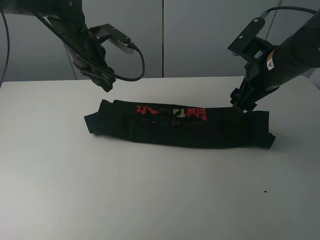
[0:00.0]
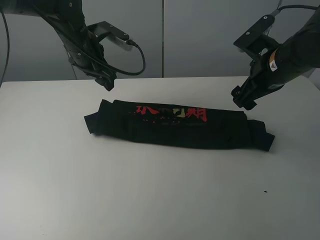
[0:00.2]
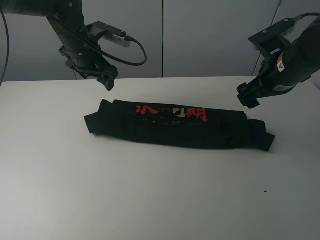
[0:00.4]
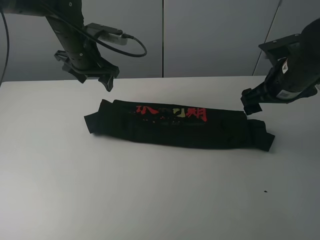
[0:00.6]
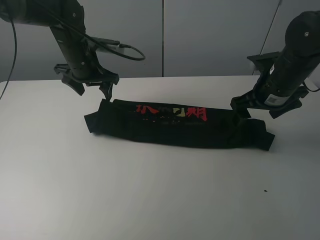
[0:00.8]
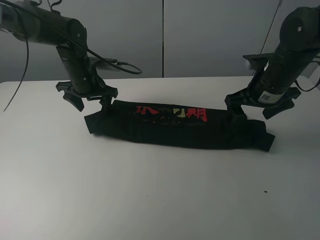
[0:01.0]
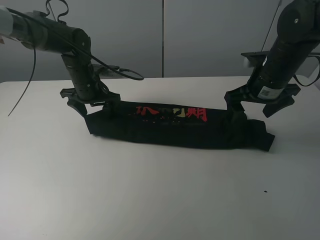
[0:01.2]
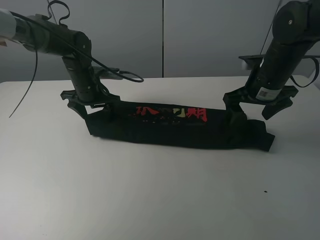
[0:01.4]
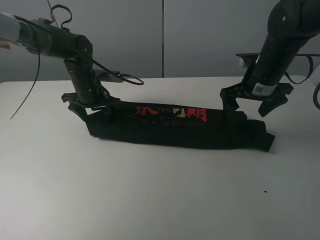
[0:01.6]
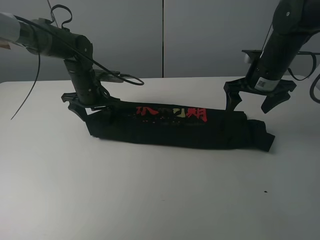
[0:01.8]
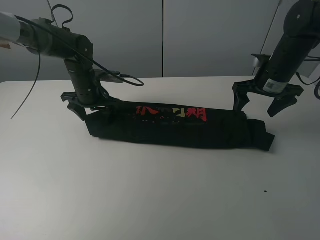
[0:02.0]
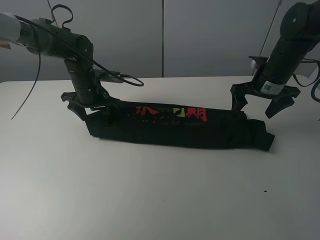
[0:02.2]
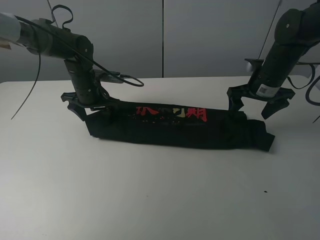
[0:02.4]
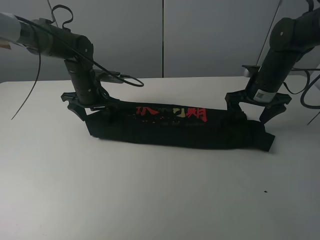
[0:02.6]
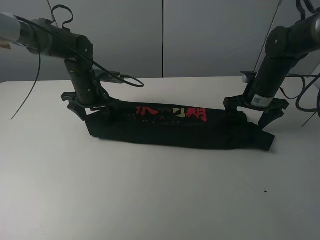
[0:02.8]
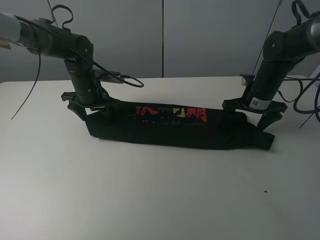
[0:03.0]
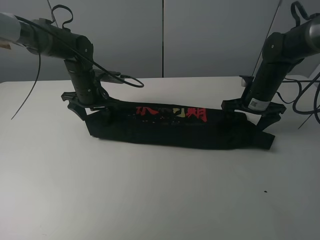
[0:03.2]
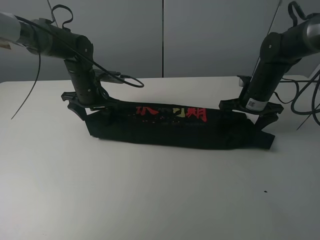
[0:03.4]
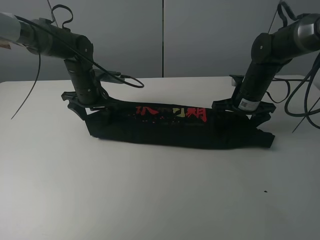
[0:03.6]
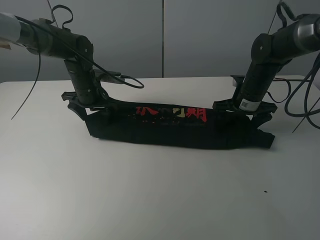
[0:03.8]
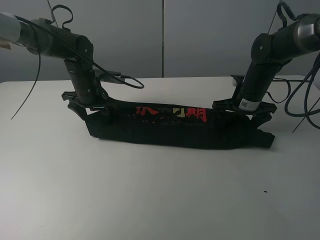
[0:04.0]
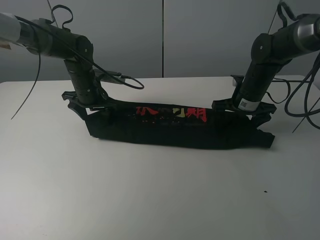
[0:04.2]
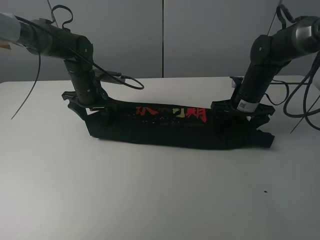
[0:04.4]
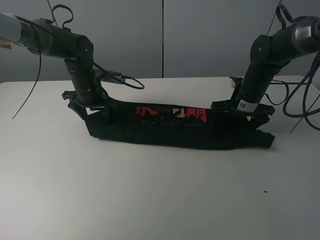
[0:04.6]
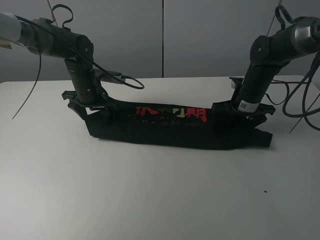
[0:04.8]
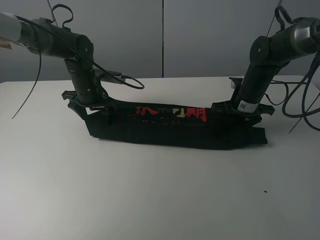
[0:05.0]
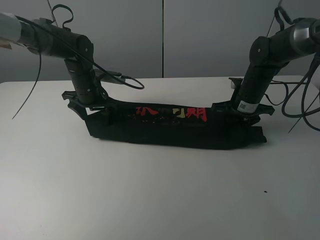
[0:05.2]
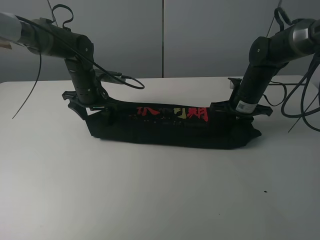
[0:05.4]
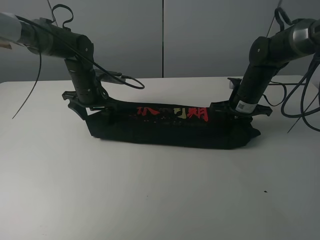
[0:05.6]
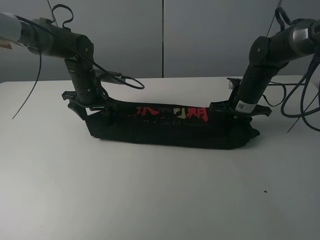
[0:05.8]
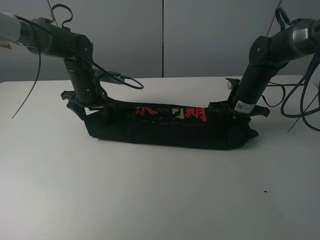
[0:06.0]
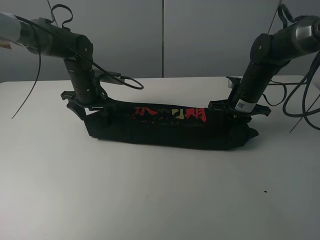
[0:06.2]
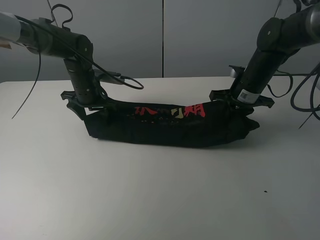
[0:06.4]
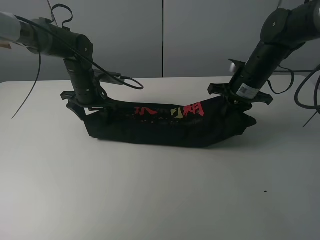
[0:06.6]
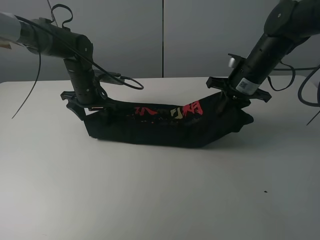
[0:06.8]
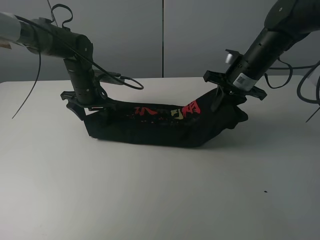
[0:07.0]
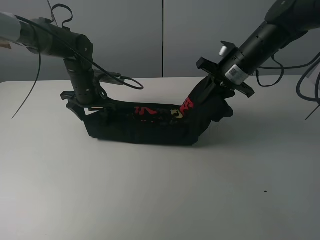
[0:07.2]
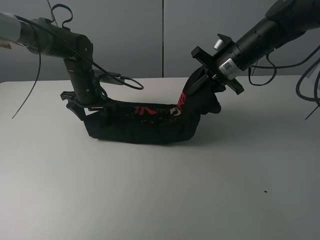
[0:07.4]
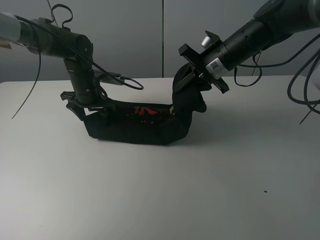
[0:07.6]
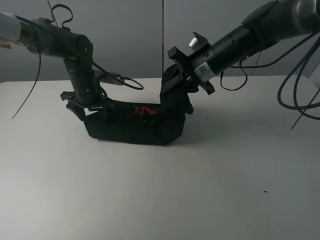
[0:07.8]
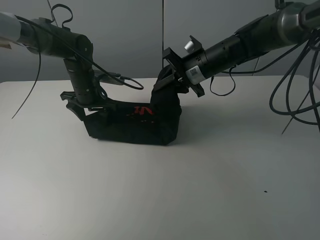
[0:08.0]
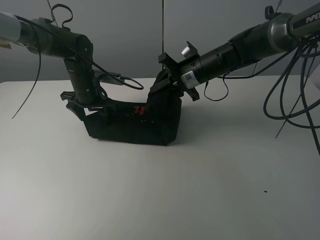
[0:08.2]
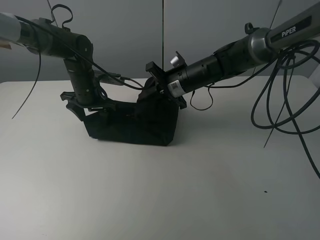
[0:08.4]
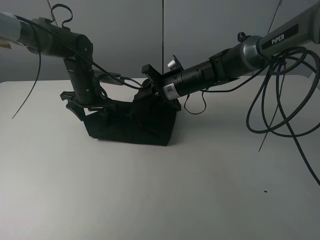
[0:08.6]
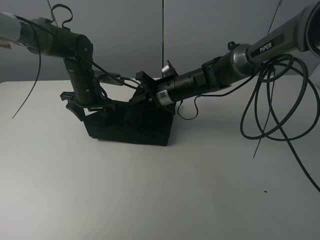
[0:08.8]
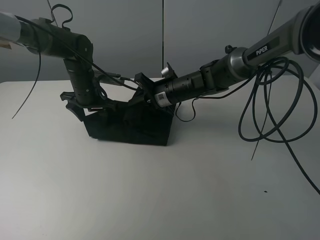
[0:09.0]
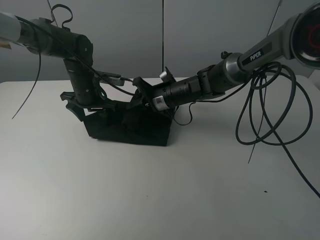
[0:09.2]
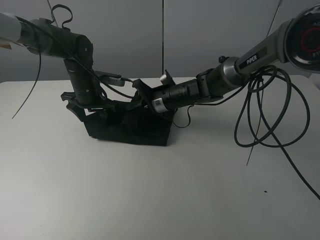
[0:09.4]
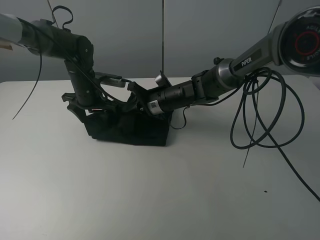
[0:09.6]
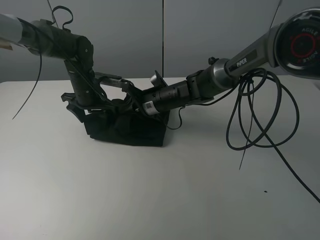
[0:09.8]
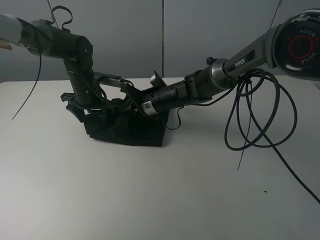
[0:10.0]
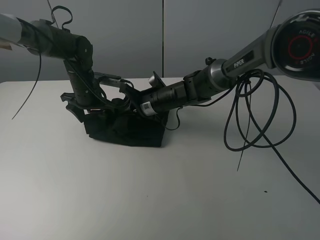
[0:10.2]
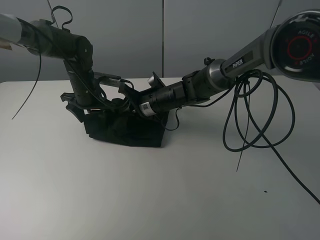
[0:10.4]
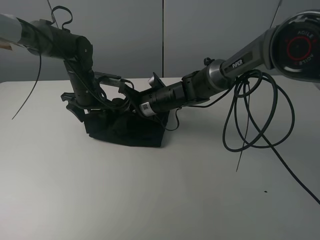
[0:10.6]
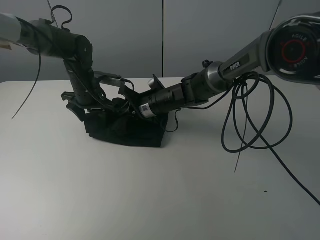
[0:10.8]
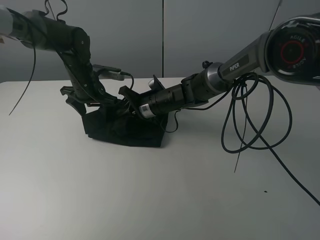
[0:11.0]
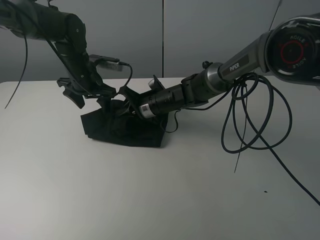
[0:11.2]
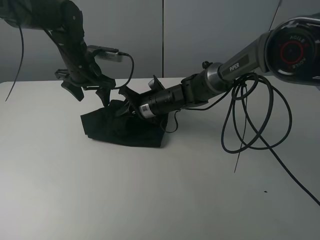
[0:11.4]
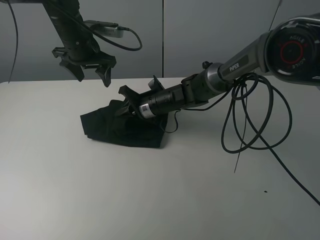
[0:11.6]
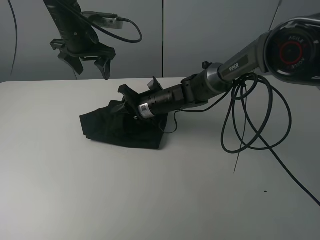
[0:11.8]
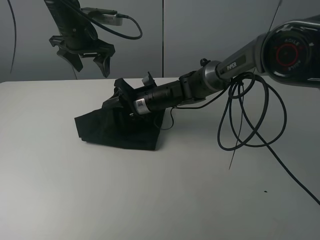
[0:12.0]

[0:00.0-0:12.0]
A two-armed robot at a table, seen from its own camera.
Task of the whole recording: fold the clothes on the table.
Step, 0:00.4 to 0:05.2: Grasp the black T-shirt with the right gripper.
0:00.0 to 0:01.6: The left gripper heads downward, covering approximately 10 cm. Meanwhile the right gripper moves forward, about 5 cm.
0:01.6 to 0:03.0: The right gripper moves downward, about 5 cm.
0:03.0 to 0:04.4: There are only small adjustments of the grippers.
0:04.4 to 0:06.0: The right gripper closes up.
0:06.0 to 0:07.6: The right gripper shifts roughly 10 cm upward and to the left.
0:07.6 to 0:09.0: The right gripper goes some 15 cm downward and to the left.
0:09.0 to 0:10.4: The grippers move only a little.
0:10.4 to 0:12.0: The left gripper shifts some 15 cm upward. The right gripper opens up.

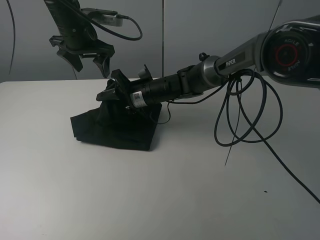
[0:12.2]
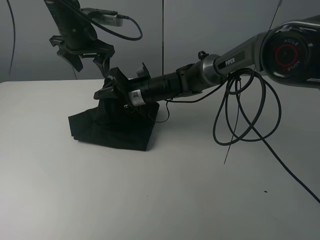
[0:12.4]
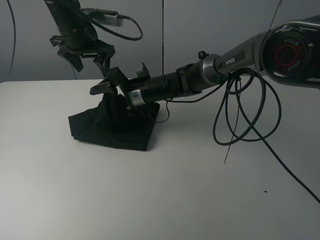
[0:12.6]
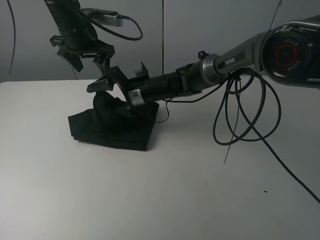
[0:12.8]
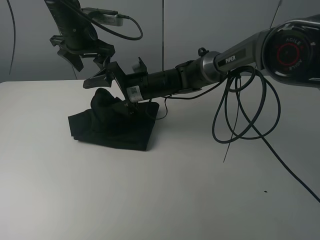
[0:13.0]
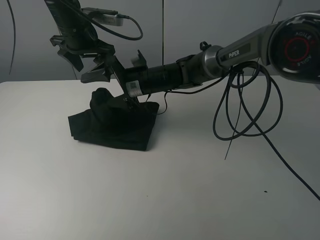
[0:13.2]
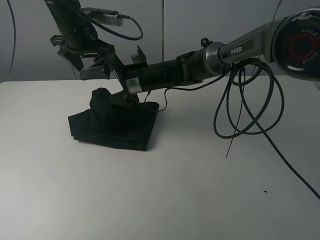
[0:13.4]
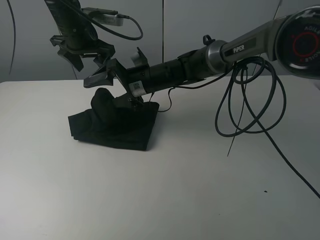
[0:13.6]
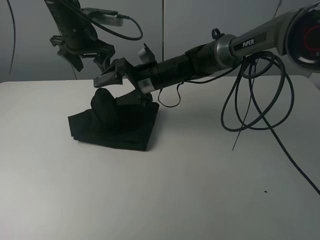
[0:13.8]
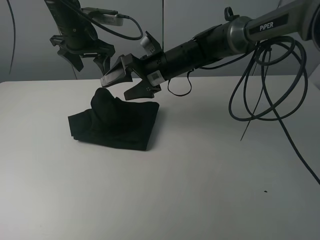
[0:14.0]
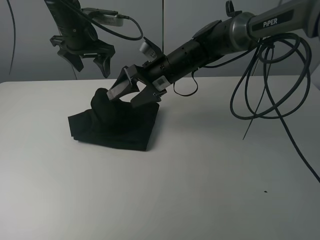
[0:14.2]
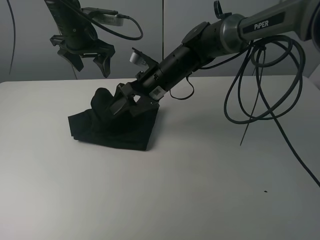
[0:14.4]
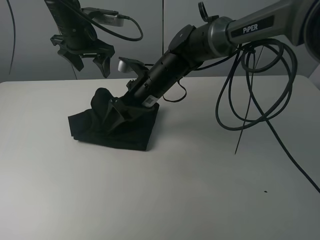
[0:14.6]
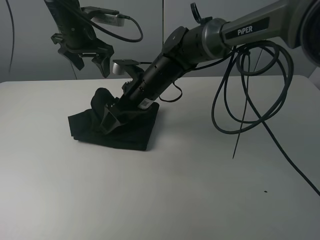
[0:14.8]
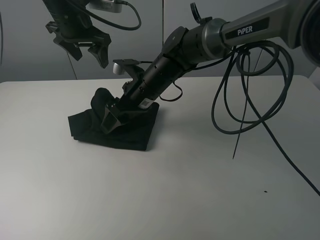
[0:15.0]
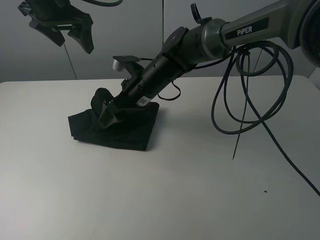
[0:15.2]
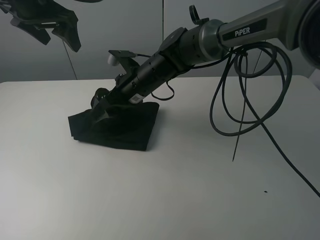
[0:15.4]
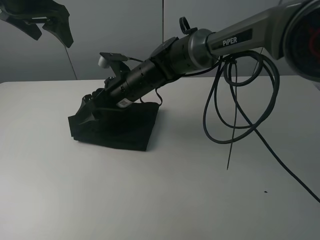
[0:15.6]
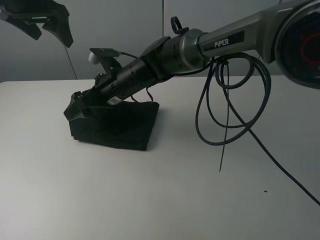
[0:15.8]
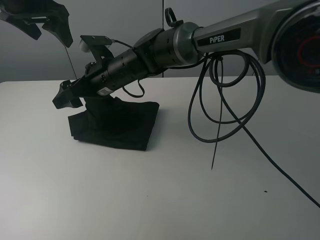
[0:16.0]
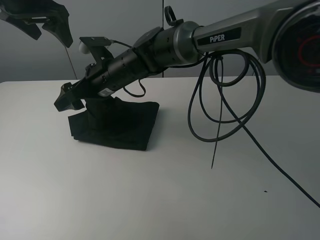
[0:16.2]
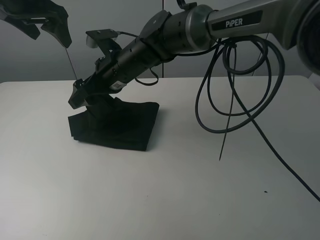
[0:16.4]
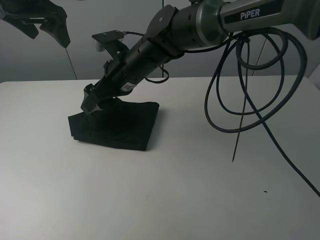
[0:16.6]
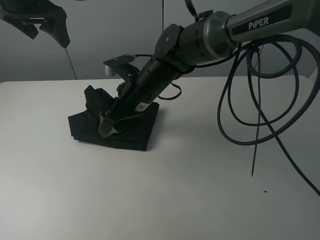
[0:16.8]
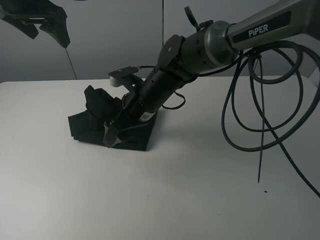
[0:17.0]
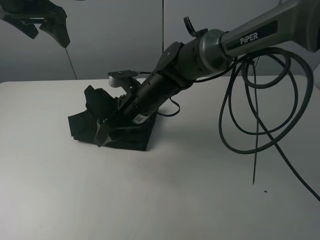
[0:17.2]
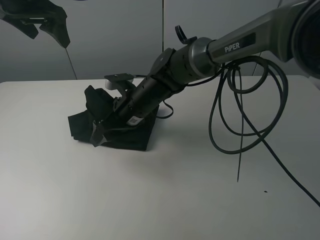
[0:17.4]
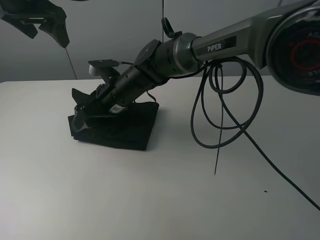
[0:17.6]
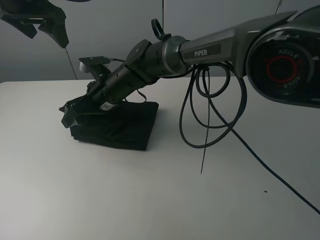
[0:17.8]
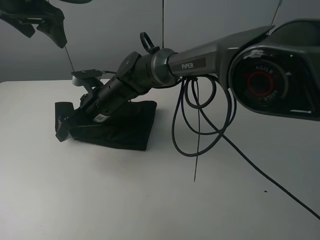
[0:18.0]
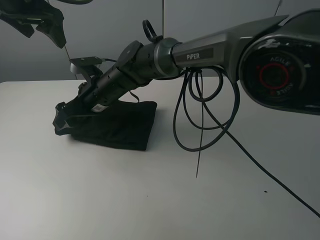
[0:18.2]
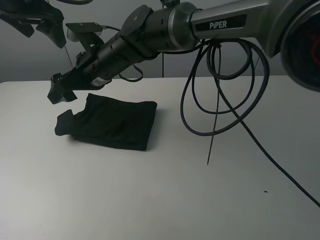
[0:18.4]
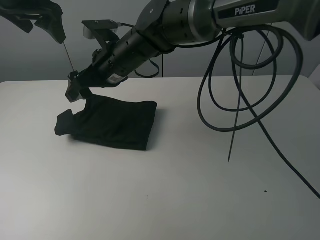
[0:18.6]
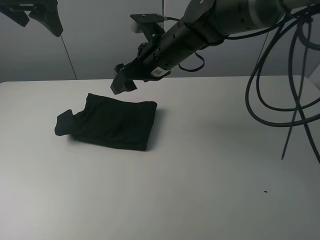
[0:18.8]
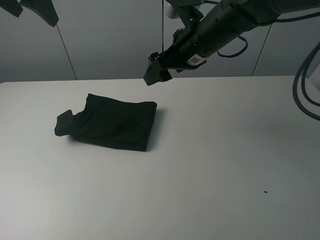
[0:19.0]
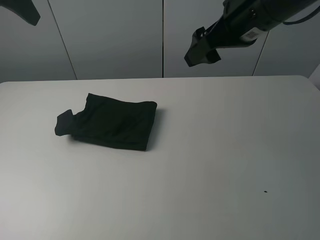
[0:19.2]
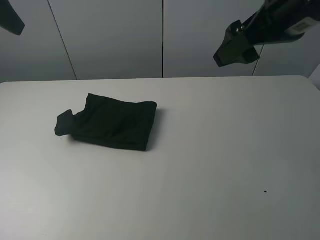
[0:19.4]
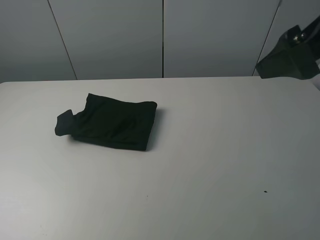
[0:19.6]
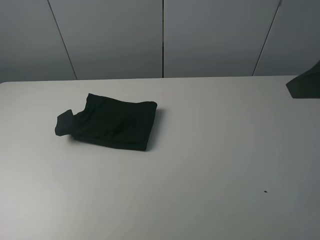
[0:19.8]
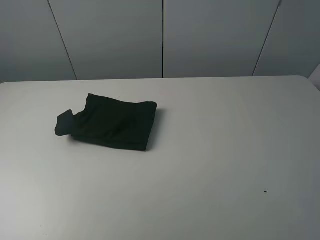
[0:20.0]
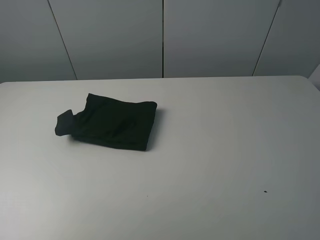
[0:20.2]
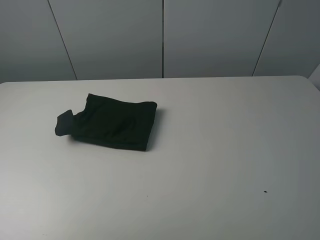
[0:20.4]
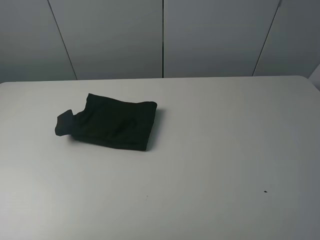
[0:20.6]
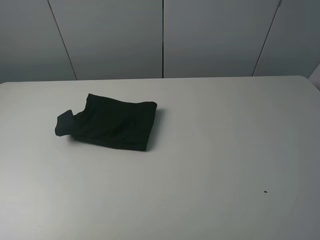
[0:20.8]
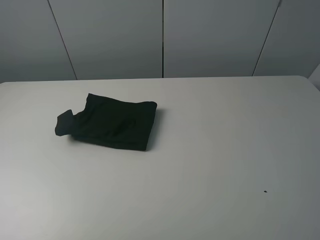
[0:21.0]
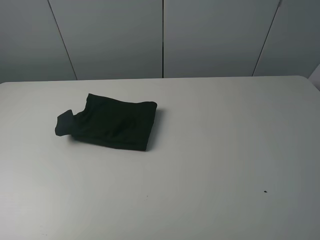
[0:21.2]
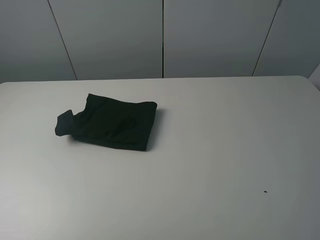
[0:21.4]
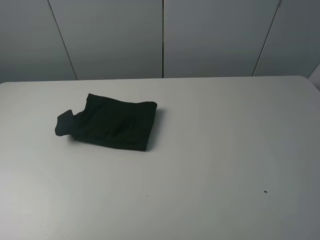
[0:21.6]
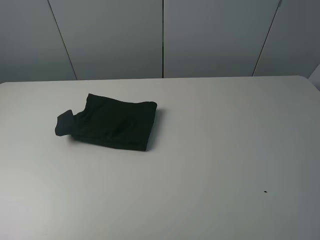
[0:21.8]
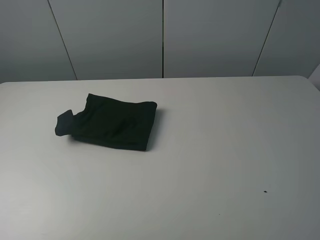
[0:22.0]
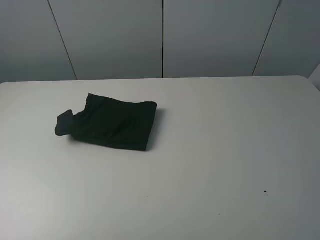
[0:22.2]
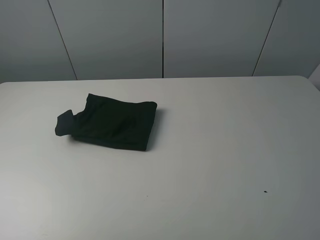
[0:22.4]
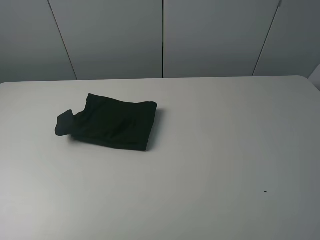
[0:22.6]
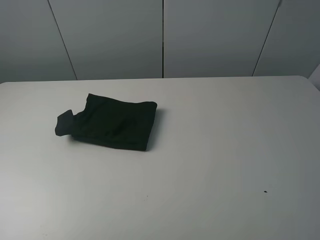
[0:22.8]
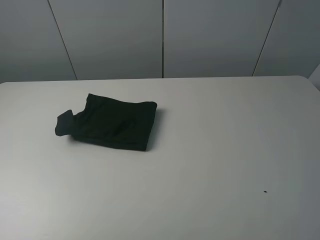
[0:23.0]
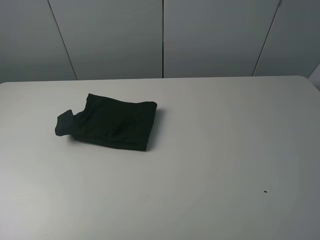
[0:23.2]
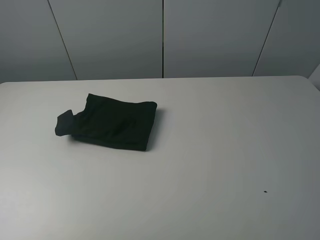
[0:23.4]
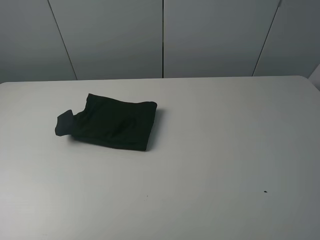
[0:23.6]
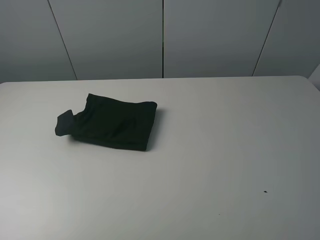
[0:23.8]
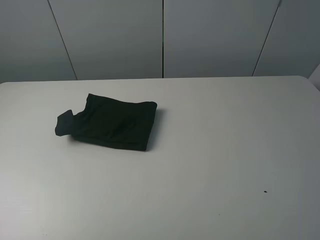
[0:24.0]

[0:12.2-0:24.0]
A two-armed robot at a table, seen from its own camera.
Task of the whole recording: fold the clothes on the table.
Step, 0:12.2 to 0:18.2: Fold the black T-shirt from right to left with right gripper.
0:12.2 to 0:13.6: The right gripper opens.
0:13.6 to 0:15.2: The left gripper moves upward, roughly 10 cm.
0:16.6 to 0:18.2: The right gripper travels to the left by approximately 5 cm.
0:18.2 to 0:19.6: The left gripper is displaced backward by approximately 20 cm. The right gripper is displaced to the right, upward and backward by some 40 cm.
0:19.6 to 0:21.0: The right gripper moves backward and downward, roughly 20 cm.
0:22.6 to 0:24.0: The two grippers keep their place.
